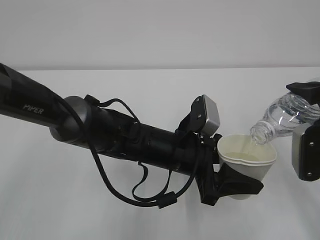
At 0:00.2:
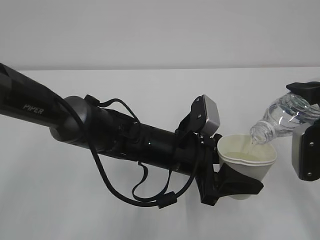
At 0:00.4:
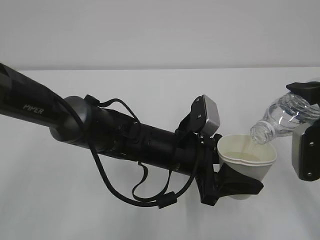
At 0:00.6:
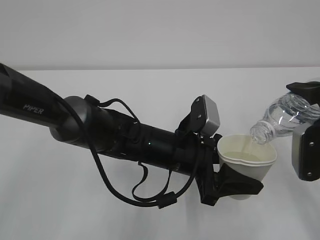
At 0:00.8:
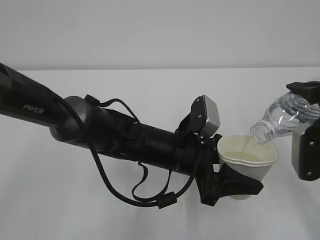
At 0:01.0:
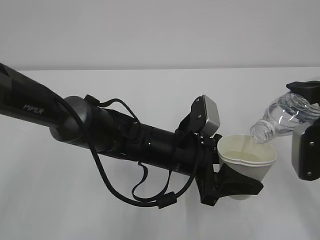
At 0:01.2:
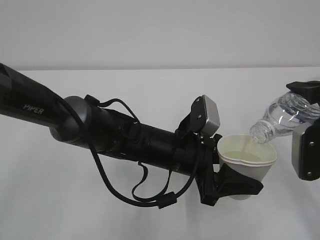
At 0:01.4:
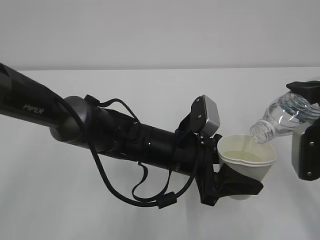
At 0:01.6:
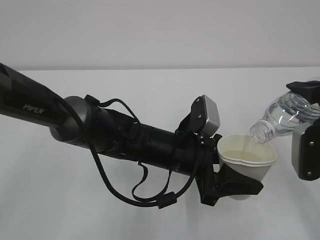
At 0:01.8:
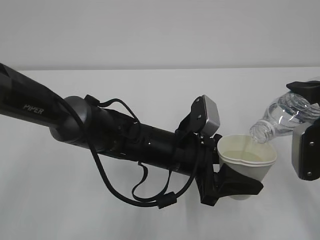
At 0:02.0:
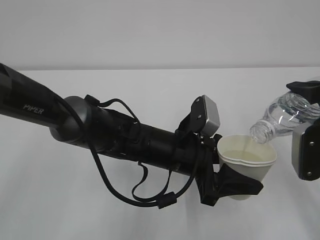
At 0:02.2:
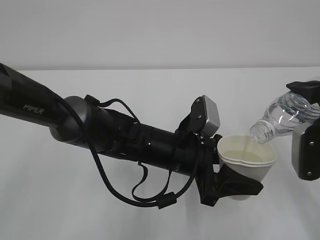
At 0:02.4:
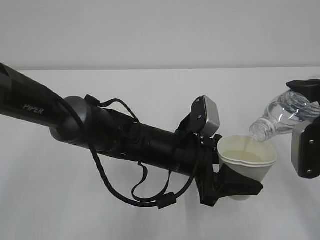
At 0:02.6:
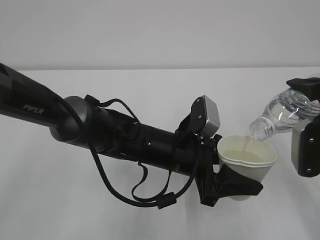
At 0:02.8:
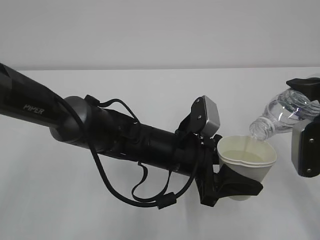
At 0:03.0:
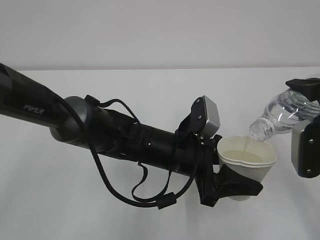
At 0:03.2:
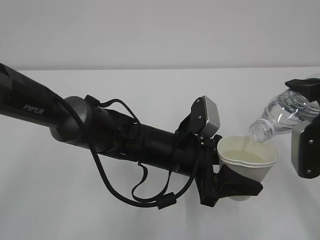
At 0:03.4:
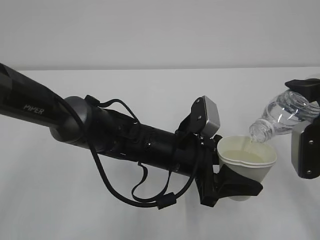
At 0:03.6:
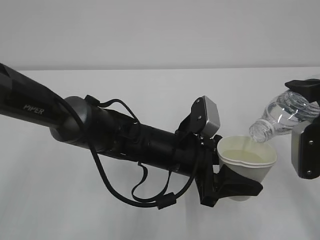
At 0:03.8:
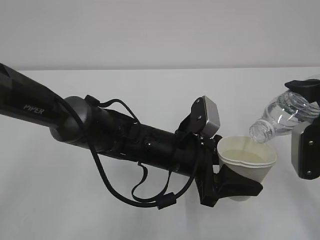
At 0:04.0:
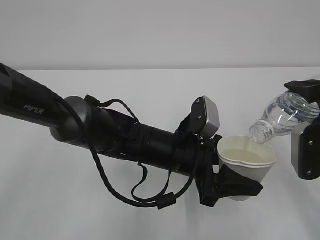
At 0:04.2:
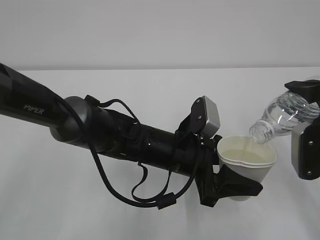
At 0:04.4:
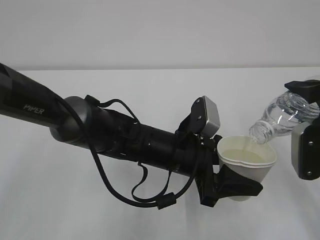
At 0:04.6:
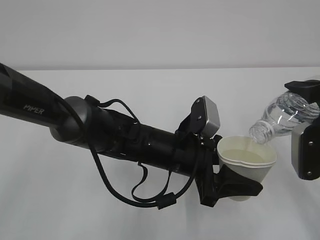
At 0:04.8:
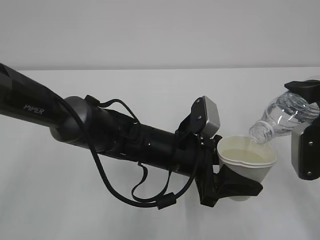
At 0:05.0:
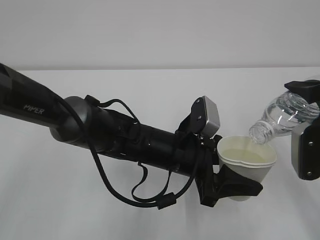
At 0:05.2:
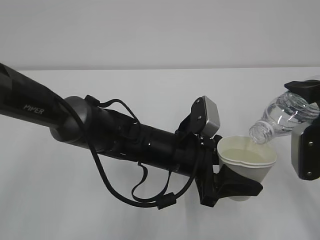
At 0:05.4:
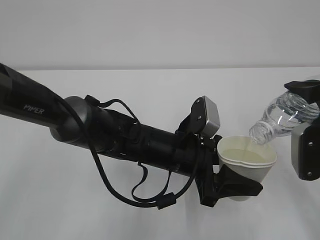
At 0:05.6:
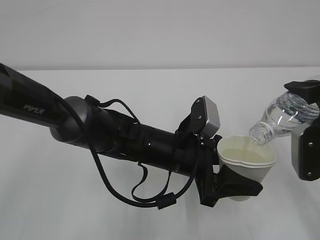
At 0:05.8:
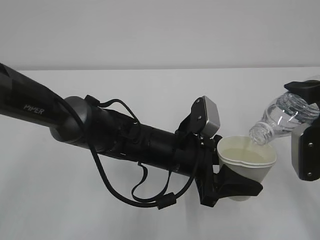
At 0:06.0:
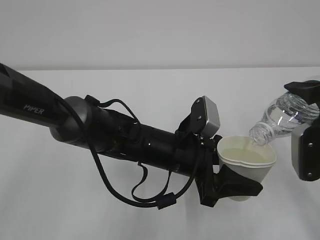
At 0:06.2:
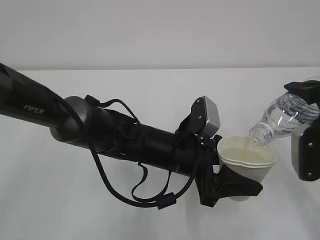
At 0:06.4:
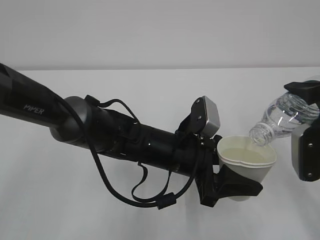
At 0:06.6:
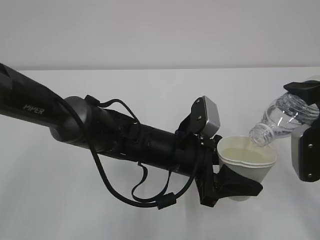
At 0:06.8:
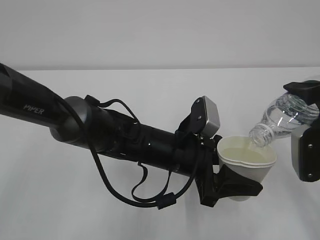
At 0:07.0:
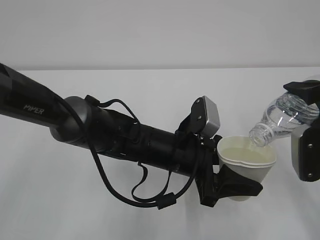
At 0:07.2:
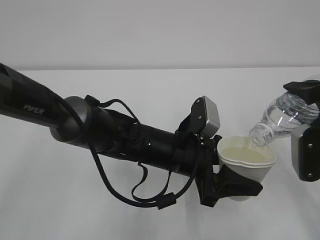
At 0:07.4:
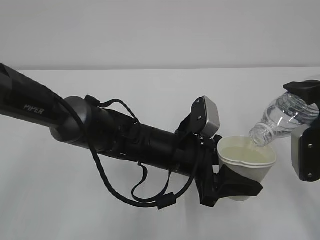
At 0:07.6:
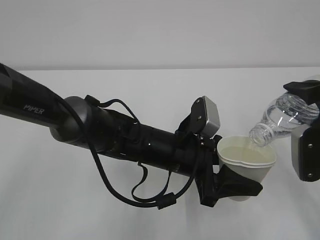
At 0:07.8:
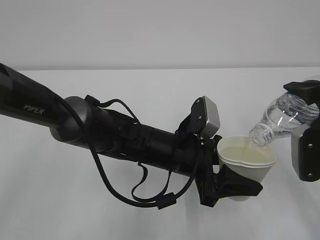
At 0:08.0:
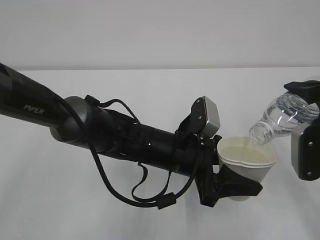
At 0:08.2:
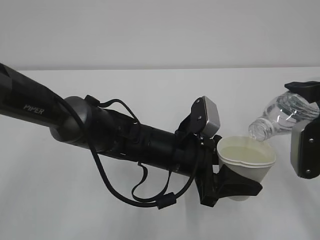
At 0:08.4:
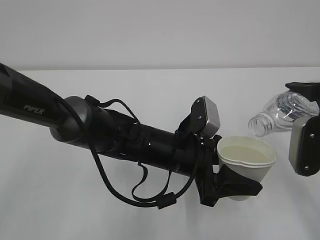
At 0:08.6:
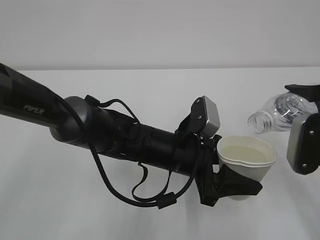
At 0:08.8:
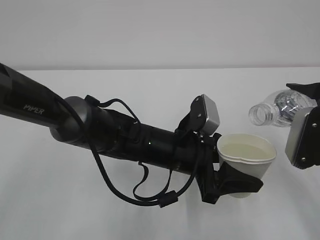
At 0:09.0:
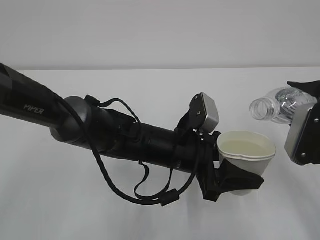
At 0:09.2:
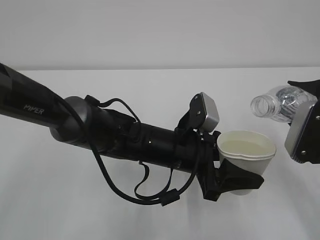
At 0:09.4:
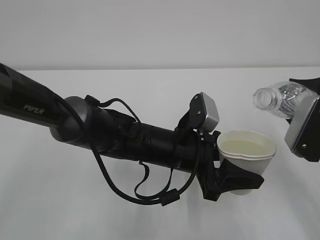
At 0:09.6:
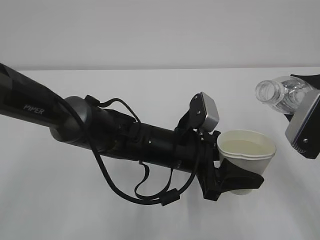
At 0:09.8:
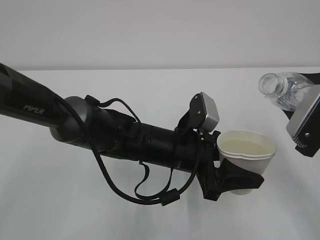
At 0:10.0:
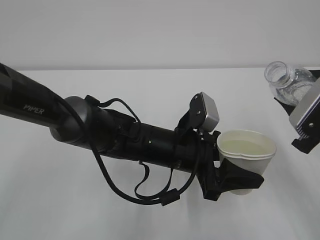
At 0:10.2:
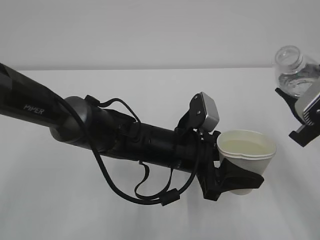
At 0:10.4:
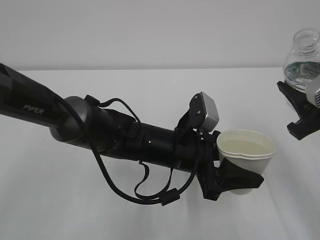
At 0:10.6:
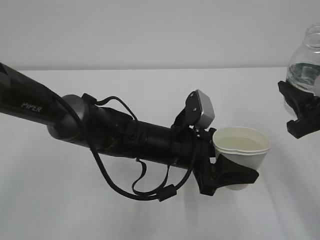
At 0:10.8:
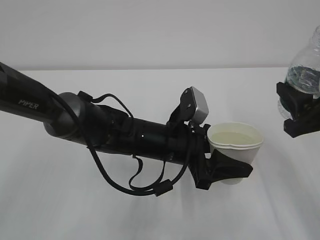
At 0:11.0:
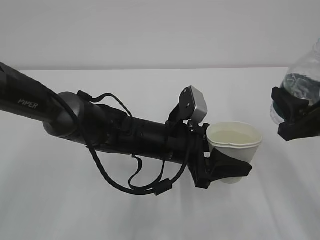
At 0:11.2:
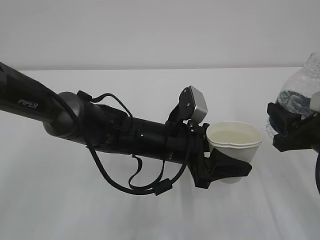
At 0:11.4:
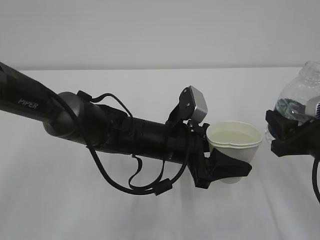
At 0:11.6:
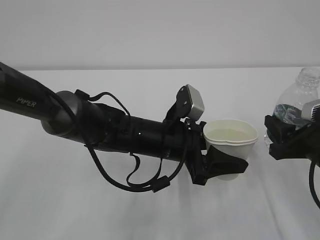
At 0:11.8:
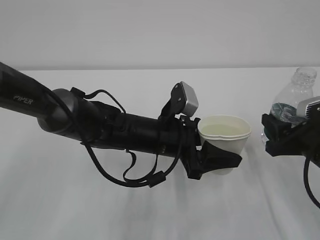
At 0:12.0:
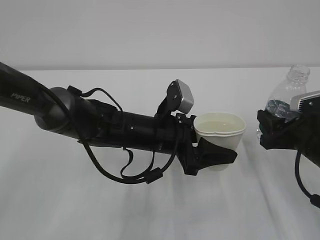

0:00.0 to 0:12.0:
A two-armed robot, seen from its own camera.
0:00.0 to 0:07.6: Both grippers stay about where they are.
0:10.4 to 0:12.0: The right gripper travels downward by roughly 10 cm.

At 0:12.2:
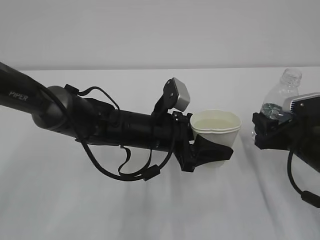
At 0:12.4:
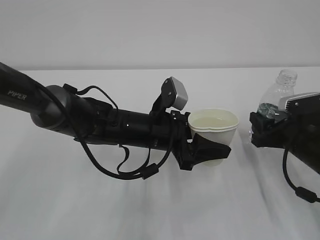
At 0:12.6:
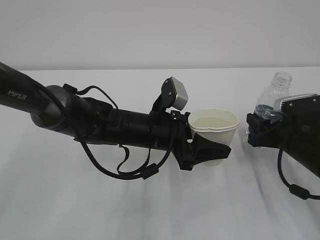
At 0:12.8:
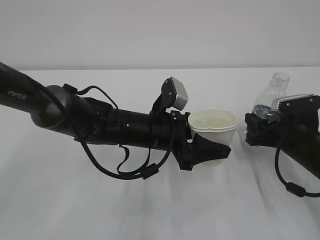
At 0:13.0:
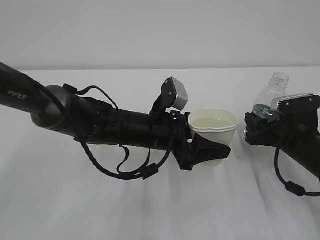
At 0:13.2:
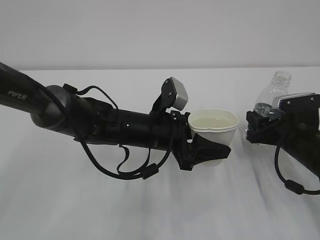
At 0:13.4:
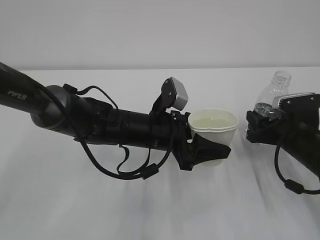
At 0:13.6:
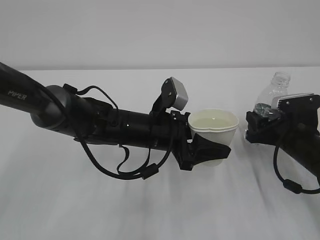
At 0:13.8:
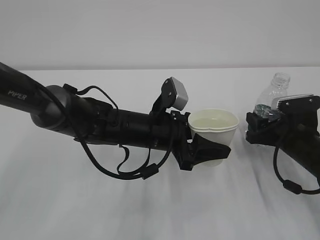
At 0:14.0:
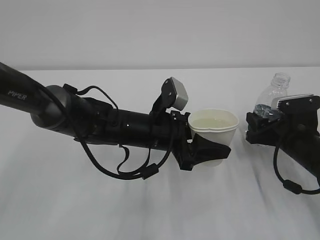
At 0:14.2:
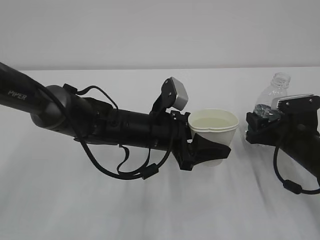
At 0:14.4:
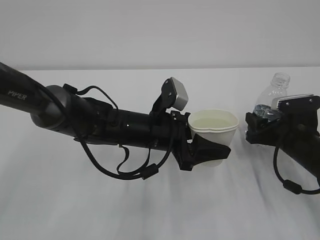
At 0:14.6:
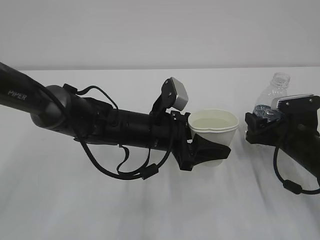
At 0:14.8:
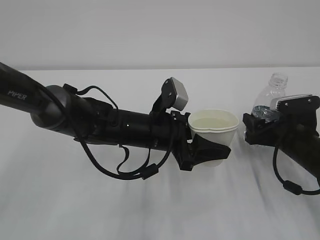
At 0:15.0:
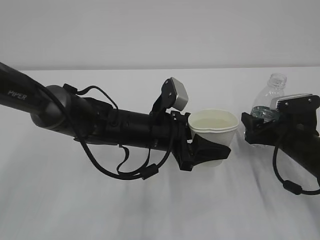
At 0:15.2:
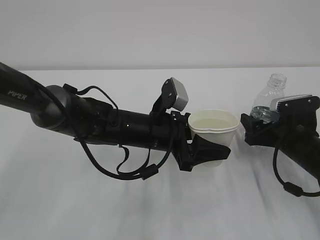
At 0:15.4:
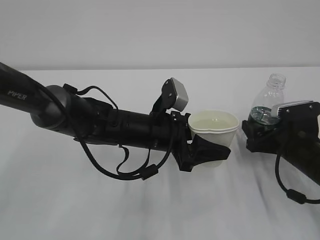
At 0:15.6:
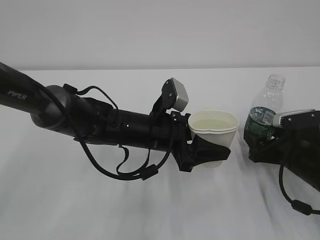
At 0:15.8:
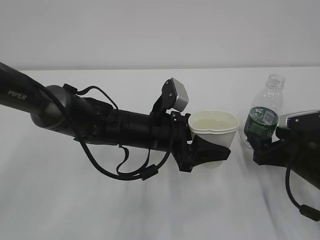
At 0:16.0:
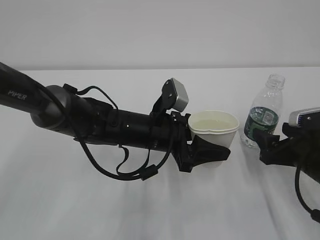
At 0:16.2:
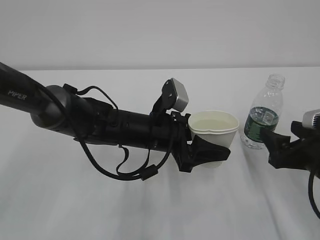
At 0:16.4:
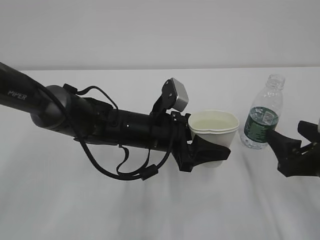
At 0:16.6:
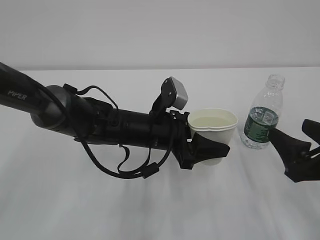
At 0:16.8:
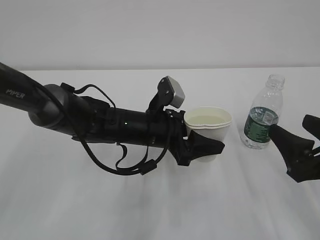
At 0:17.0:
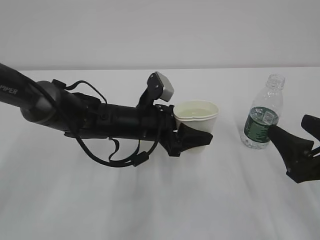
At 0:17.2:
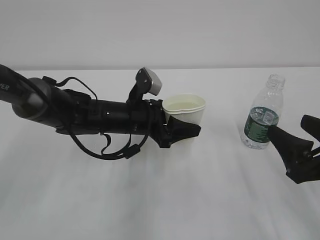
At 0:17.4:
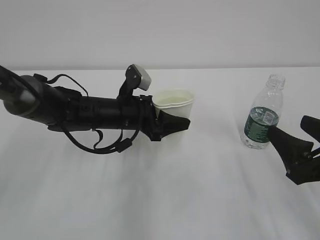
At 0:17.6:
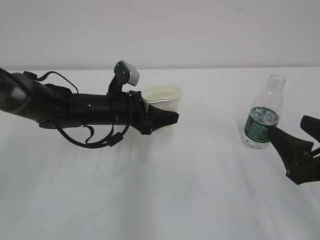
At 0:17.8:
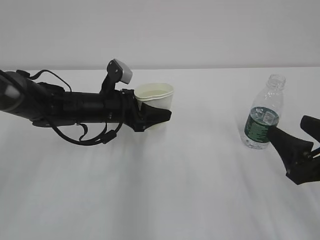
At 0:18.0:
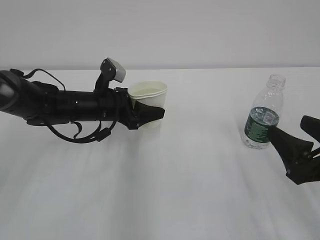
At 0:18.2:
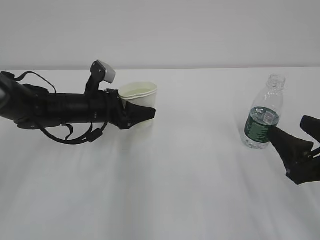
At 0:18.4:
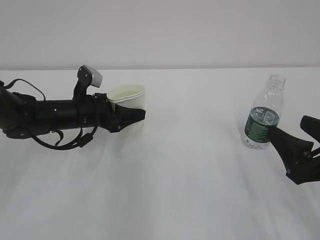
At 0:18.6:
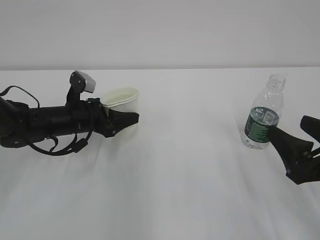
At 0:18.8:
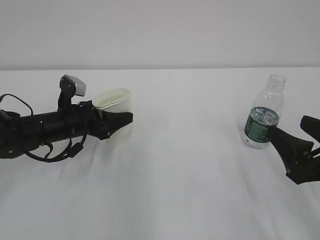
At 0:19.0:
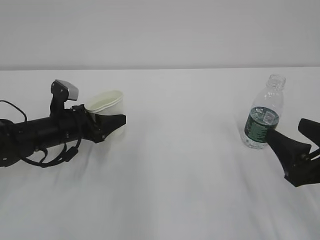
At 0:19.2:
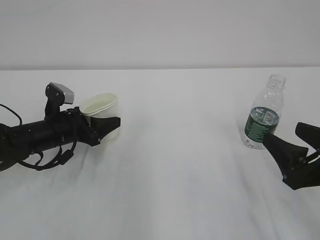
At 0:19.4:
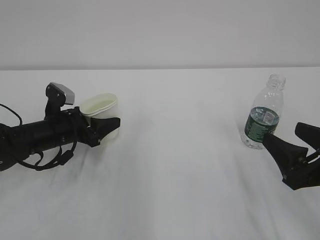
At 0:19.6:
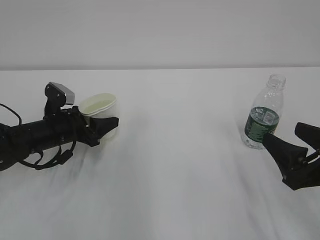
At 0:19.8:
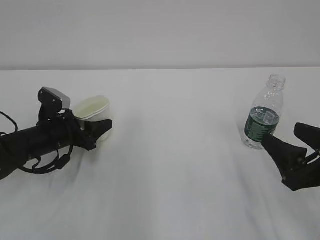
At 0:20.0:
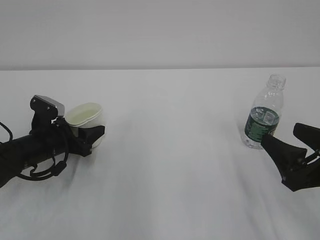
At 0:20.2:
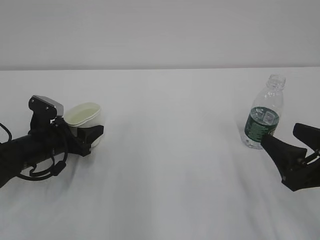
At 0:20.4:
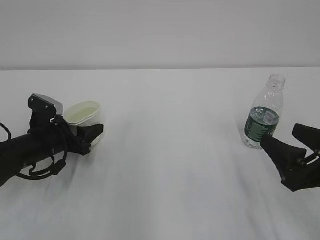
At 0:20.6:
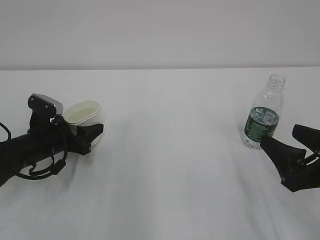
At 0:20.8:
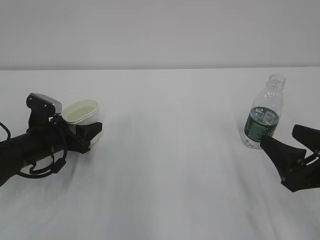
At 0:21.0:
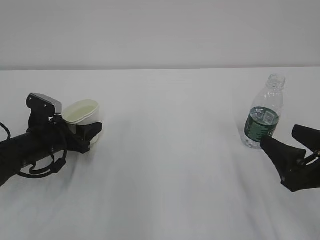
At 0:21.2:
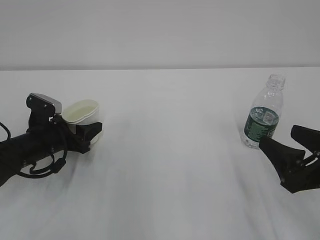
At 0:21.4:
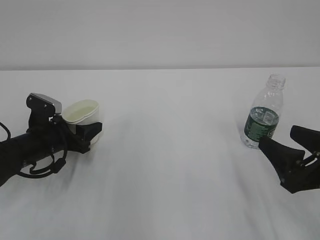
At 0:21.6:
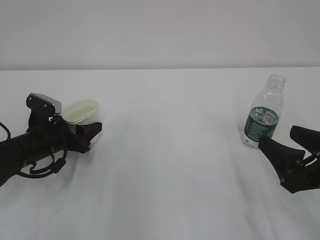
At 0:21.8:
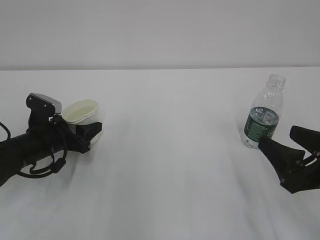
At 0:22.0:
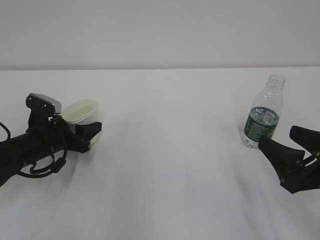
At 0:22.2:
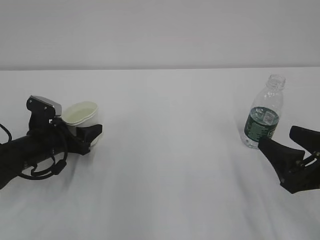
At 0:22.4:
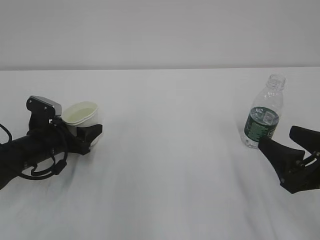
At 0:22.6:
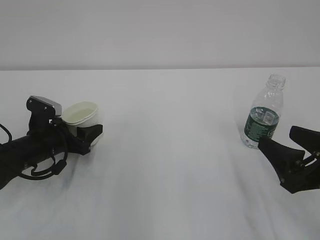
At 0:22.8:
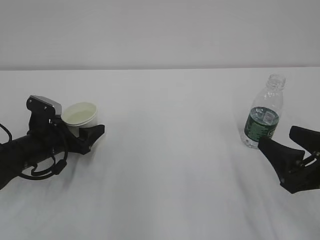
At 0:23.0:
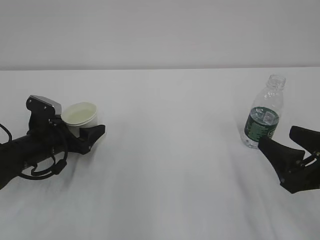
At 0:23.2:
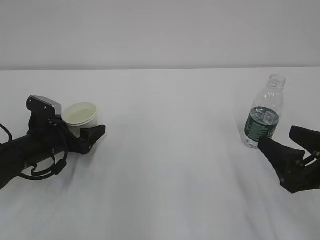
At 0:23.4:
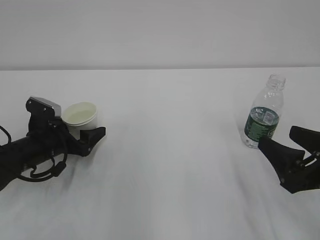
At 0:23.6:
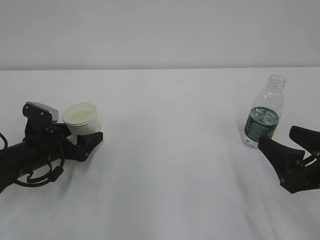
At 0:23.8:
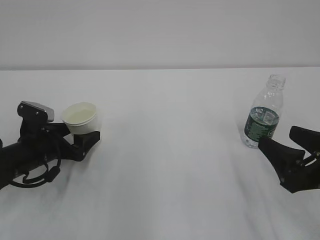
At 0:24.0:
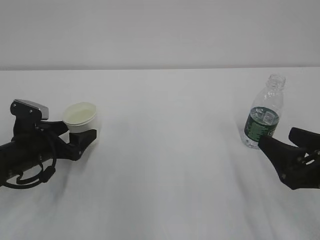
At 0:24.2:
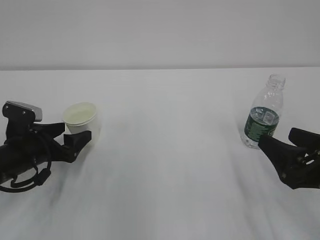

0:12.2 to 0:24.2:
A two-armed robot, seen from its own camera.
0:12.2 to 0:13.8: The grippers stay close to where they were, moving slightly.
0:13.8 to 0:15.2: The right gripper opens up.
0:15.2 to 0:16.6: The right gripper heads backward and upward, covering some 15 cm.
0:16.6 to 0:18.2: The left gripper goes roughly 15 cm to the left and forward.
0:18.2 to 0:19.8: The left gripper goes about 10 cm to the left.
0:19.8 to 0:21.2: The grippers move only a little.
0:21.2 to 0:22.6: Neither gripper changes place.
0:22.6 to 0:24.2: The left gripper opens its fingers.
